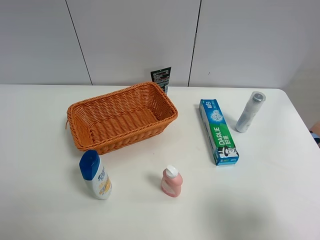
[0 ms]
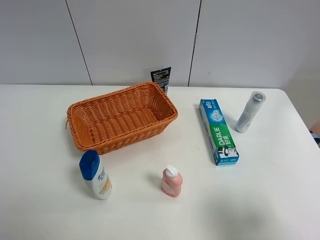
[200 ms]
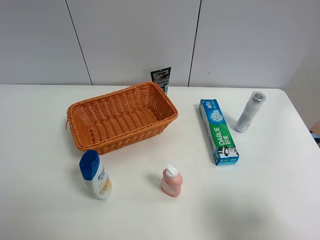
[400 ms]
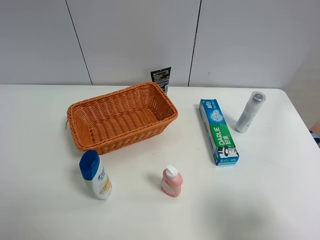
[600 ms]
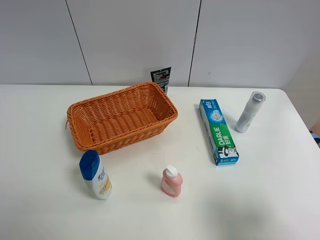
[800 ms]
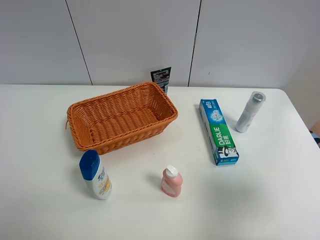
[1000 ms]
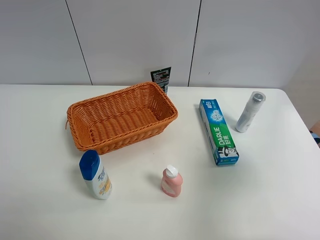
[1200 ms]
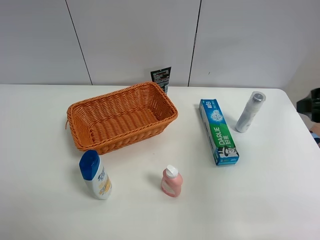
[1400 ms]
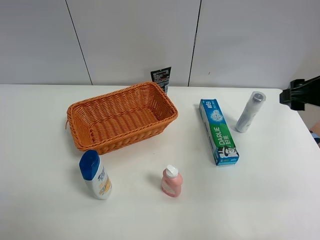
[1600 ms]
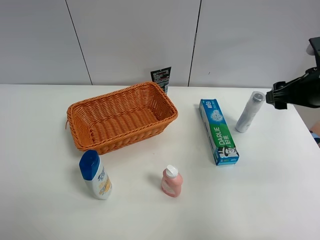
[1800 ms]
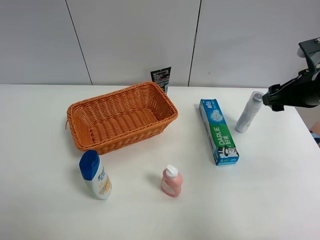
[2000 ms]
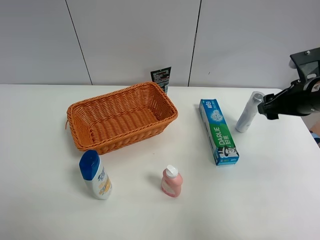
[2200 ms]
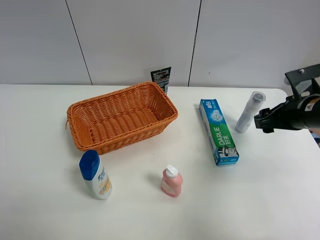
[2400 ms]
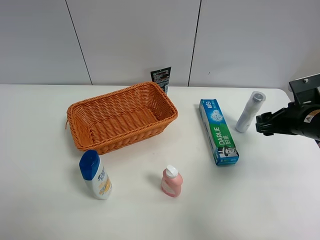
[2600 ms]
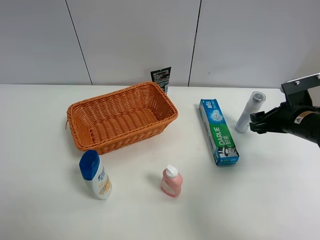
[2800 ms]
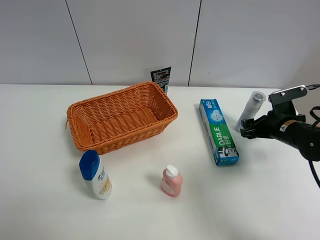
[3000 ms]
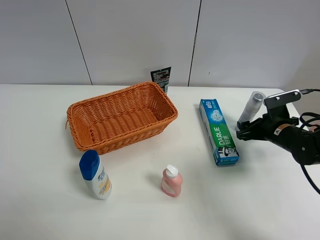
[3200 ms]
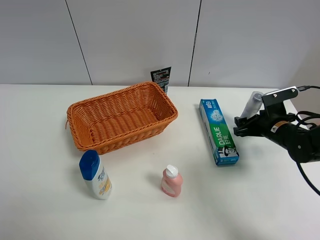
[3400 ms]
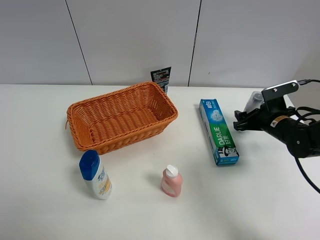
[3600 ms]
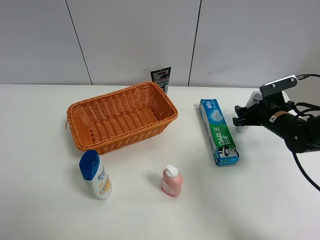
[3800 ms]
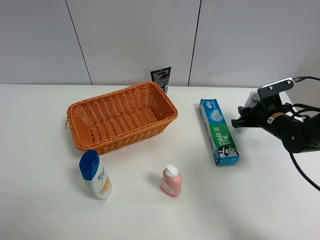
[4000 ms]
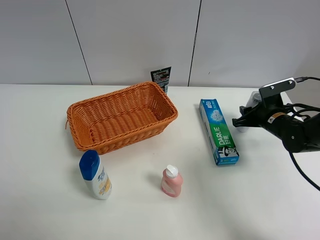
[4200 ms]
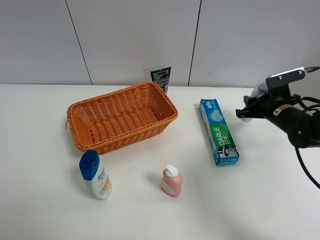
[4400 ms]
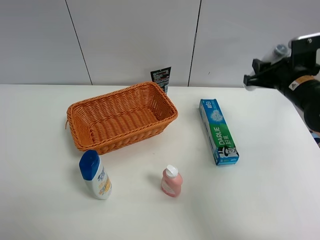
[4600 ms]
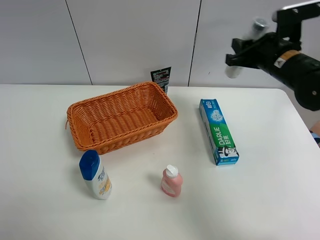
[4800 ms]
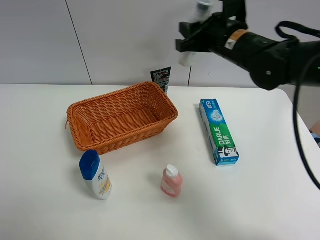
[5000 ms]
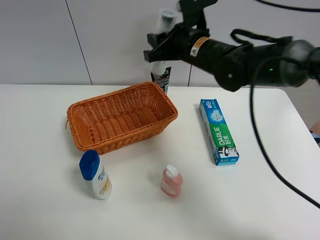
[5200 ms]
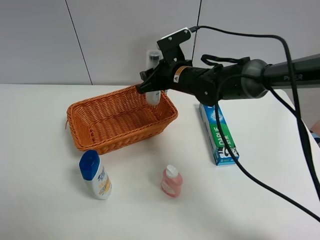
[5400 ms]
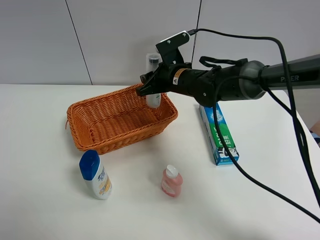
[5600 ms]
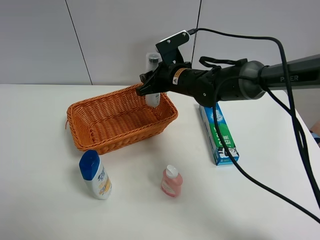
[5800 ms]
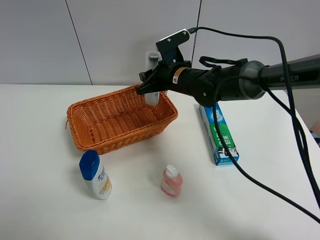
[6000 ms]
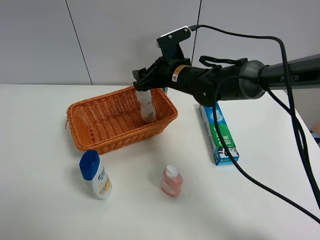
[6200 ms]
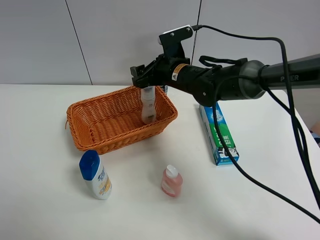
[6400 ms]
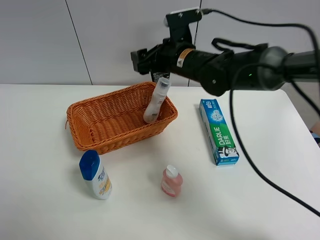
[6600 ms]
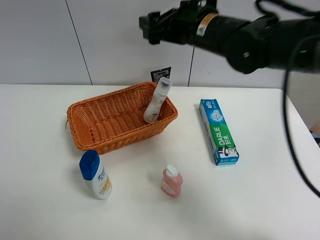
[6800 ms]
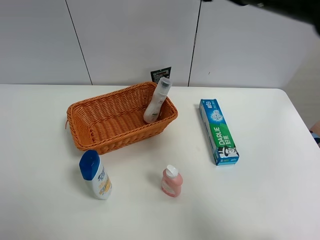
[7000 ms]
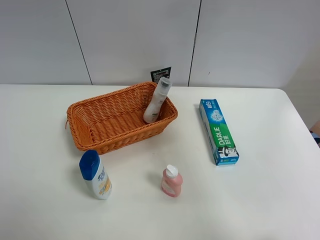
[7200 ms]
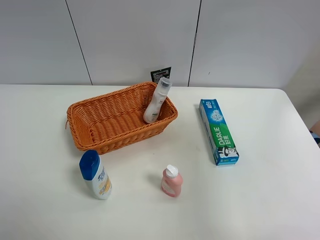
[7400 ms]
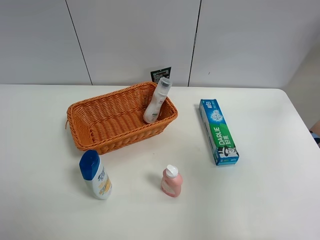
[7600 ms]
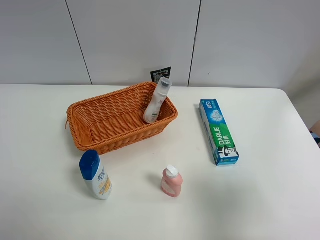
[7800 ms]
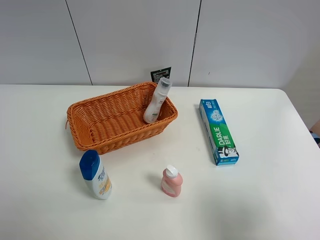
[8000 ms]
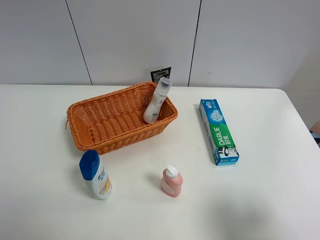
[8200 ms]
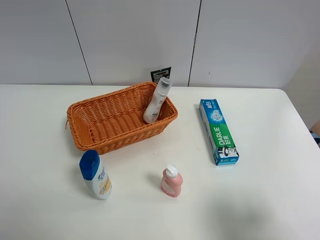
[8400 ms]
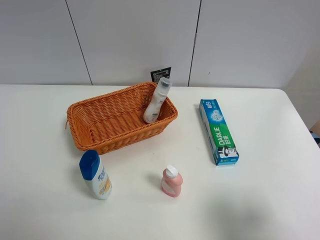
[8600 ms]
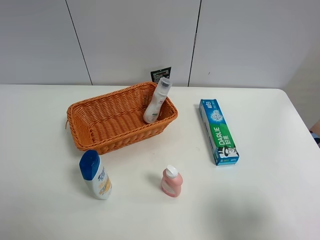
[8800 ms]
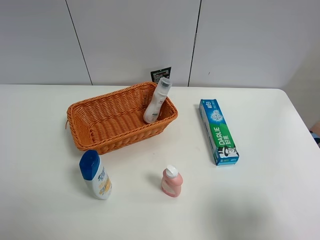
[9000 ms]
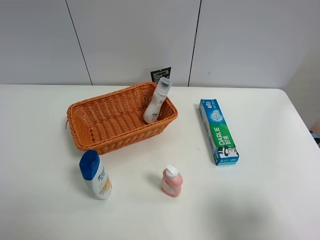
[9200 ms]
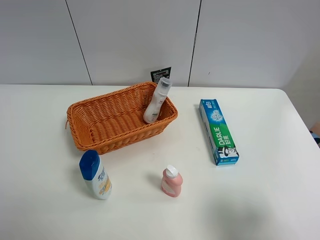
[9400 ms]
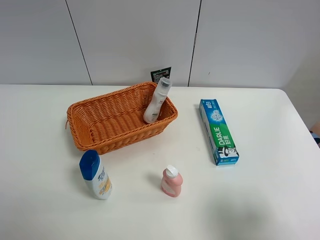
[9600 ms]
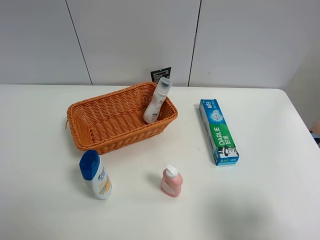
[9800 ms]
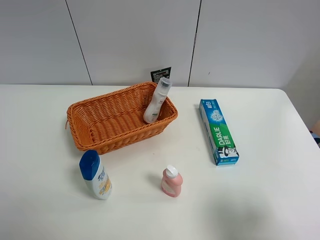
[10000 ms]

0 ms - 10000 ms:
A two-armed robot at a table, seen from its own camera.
Task of the whole recording: Place the object closest to the toothpaste in the basket.
Step, 0 ms - 4000 ms: Grasp the cleaning agent with right gripper.
Step, 4200 ms - 6400 ms: Place the cleaning agent in the basket with right gripper.
0 ms - 1400 ms: The right gripper is displaced forward by roughly 20 cm.
1400 ms - 2800 ms: The right gripper goes approximately 15 cm downward and forward.
2800 ms - 4200 ms: The right gripper moves forward, roughly 5 cm, and closes its fingers.
4200 ms - 5800 ms: The right gripper is displaced to the left by about 25 cm.
5800 ms - 7200 ms: The right gripper goes about 35 cm upward, to the right and backward, and opens up.
7200 ms - 8600 ms: The right gripper travels backward and downward by roughly 25 cm.
8600 ms - 10000 ms: The two grippers keep their place.

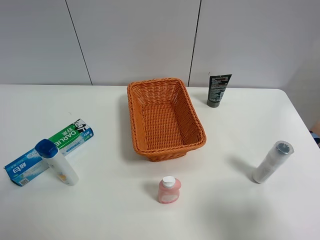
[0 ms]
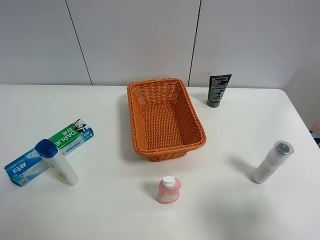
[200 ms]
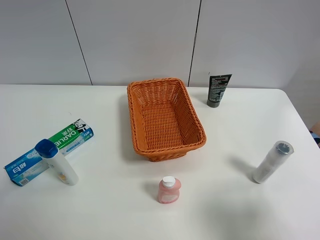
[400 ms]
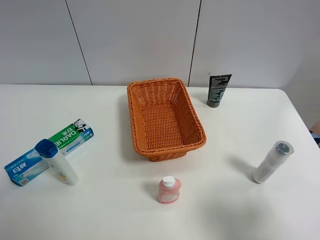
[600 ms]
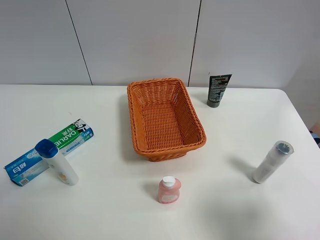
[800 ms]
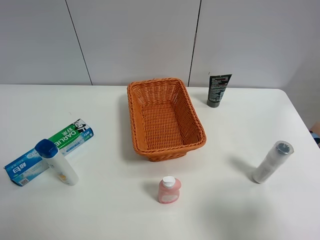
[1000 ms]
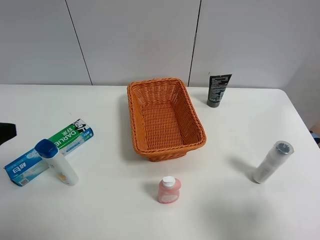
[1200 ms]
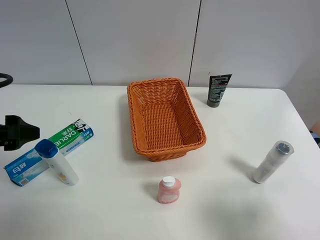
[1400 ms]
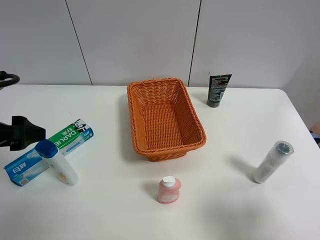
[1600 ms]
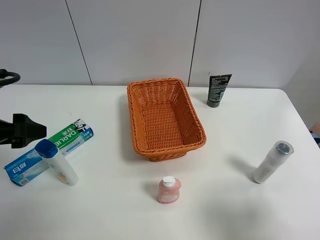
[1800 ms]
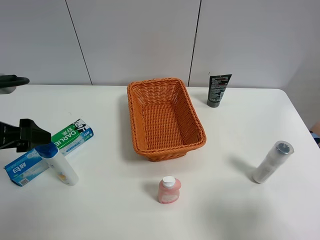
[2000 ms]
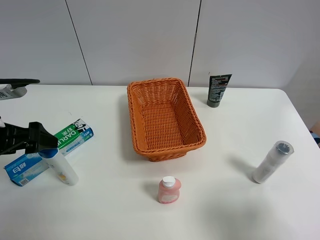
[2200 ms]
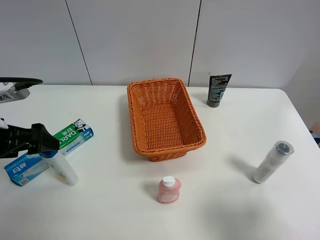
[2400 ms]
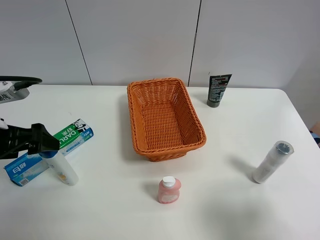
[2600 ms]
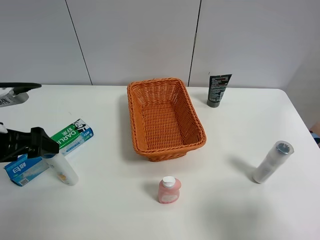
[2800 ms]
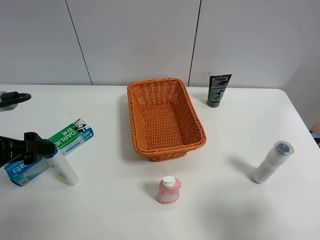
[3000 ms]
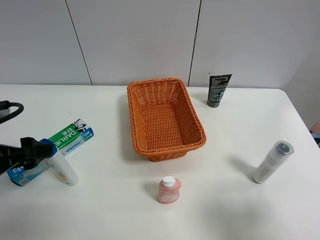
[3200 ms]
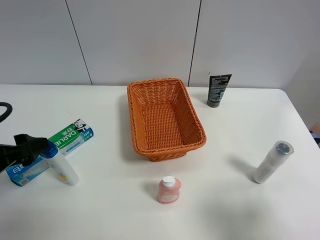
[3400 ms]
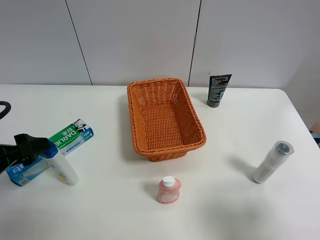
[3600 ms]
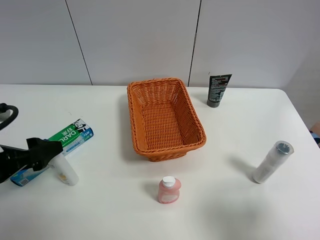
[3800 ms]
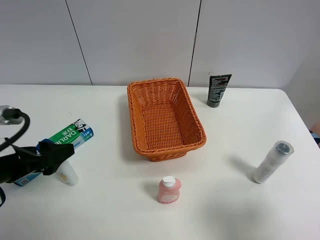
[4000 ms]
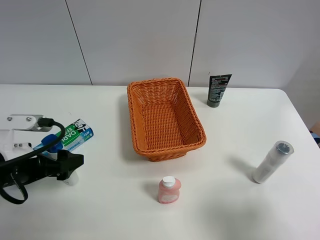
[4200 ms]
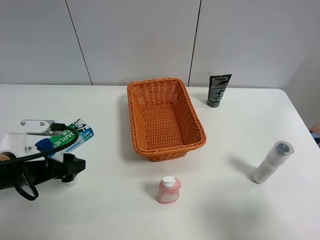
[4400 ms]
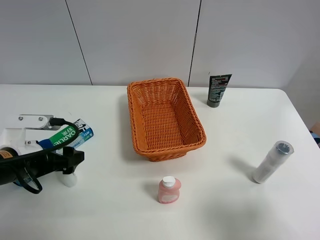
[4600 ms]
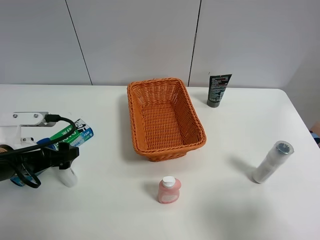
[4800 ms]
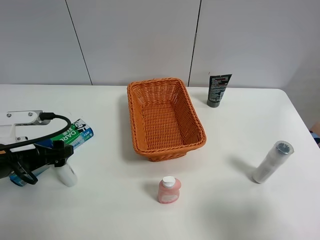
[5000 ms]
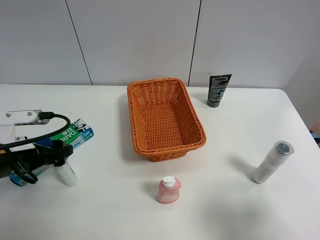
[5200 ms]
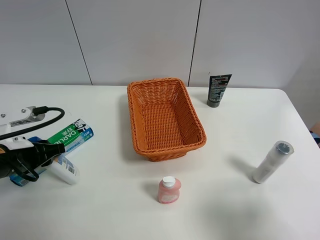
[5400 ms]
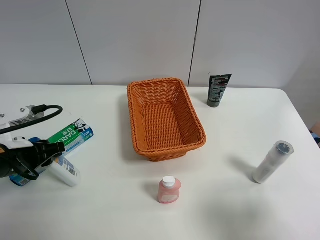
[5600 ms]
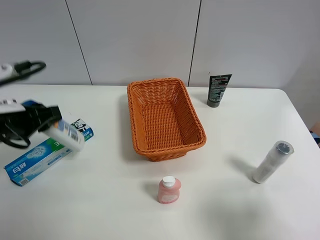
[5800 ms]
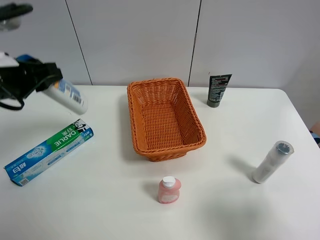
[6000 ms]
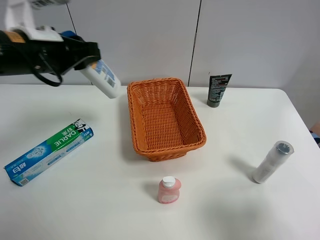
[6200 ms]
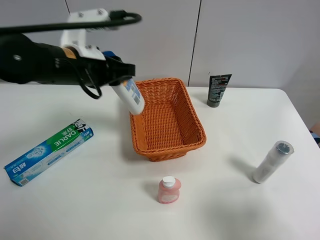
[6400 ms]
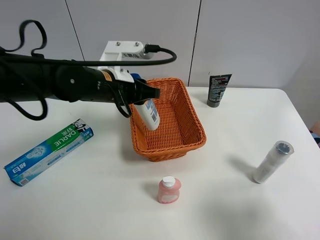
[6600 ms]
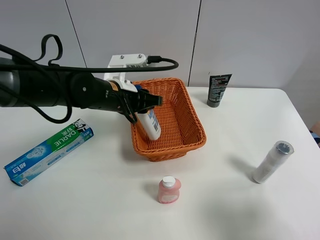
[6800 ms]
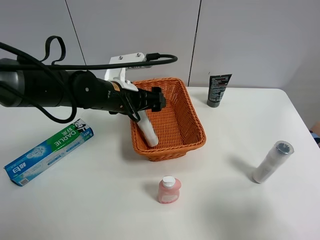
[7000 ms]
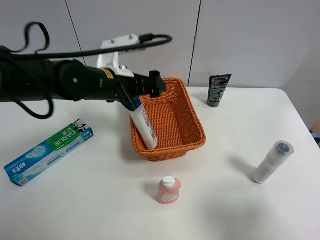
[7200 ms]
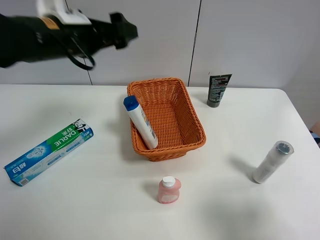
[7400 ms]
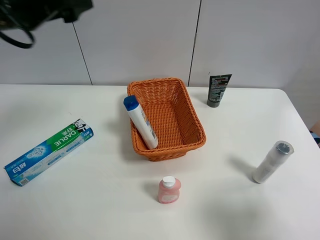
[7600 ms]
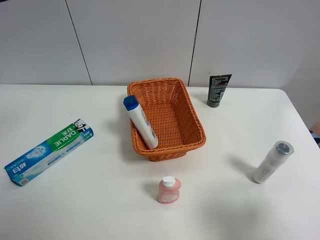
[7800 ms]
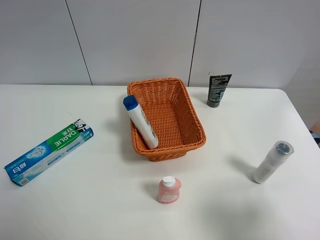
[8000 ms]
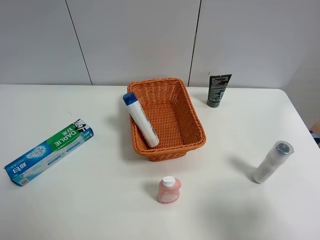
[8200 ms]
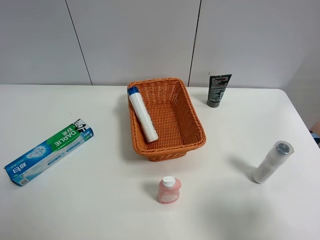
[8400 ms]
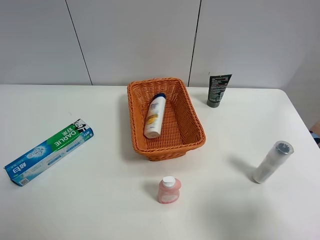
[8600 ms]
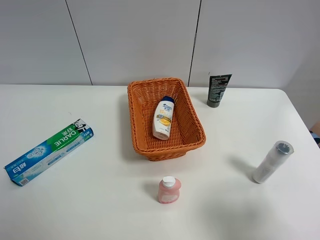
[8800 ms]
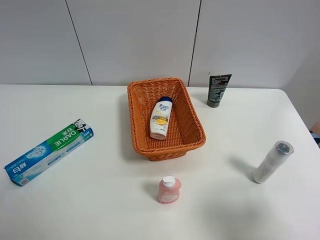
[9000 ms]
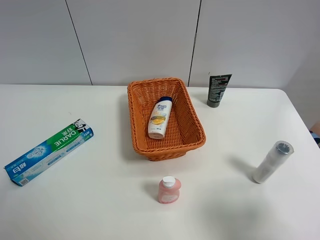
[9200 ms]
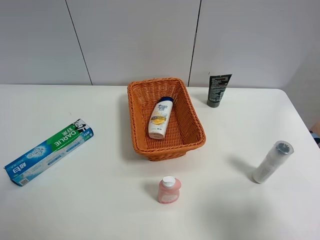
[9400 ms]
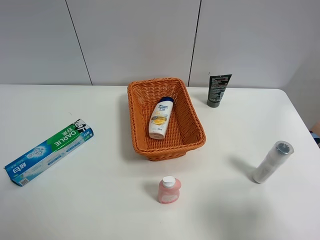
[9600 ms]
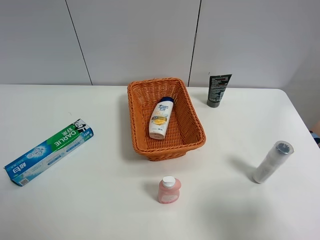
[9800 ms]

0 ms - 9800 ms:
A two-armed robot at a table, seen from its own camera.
Task of the whole recording: Place the object closest to the toothpaste in the basket.
Step, 0 ms - 5400 ms: Grasp the shampoo with left gripper.
Step, 5600 ms - 7200 ms: Place the shampoo in the basket with left gripper.
0 ms - 1400 ms: The left gripper is displaced forward by some 15 cm.
1400 ms - 2800 ms: There are only small adjustments of the grippers.
2800 ms - 4200 ms: The left gripper shifts some 5 cm downward.
4200 ms - 5600 ms: The left gripper closes its fingers.
5600 ms - 7000 ms: The left gripper shifts roughly 25 cm to the right and forward, and opens its fingers.
7000 ms - 8400 ms: The left gripper shifts approximately 40 cm backward, to the left and upward.
8400 ms - 9800 ms: The left gripper is displaced downward by about 10 cm.

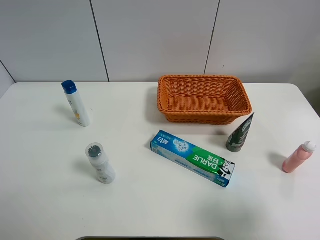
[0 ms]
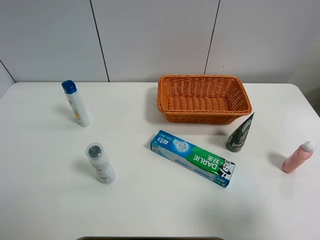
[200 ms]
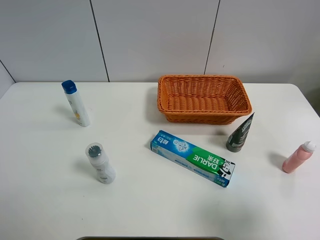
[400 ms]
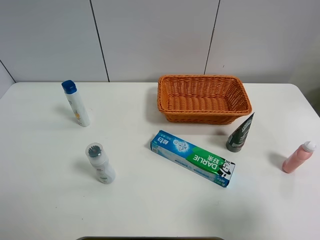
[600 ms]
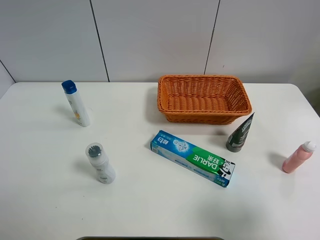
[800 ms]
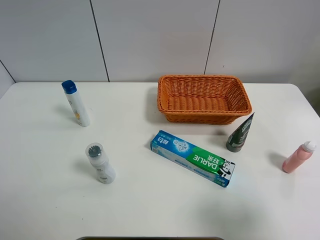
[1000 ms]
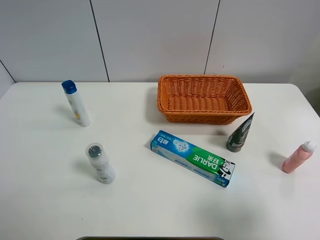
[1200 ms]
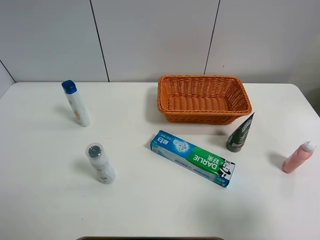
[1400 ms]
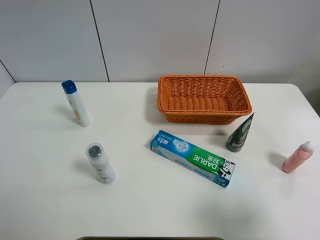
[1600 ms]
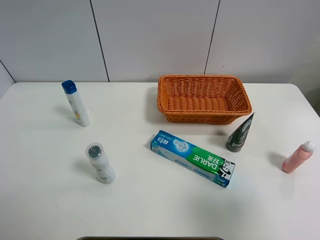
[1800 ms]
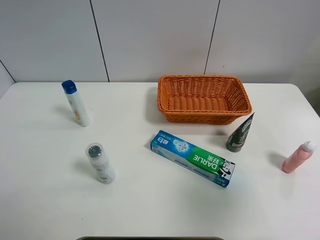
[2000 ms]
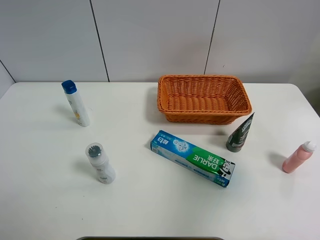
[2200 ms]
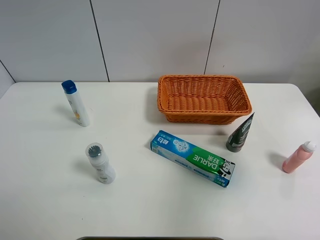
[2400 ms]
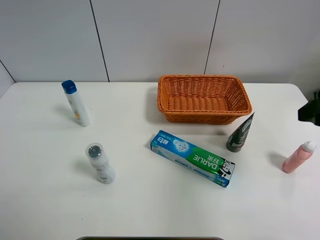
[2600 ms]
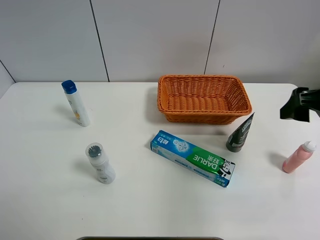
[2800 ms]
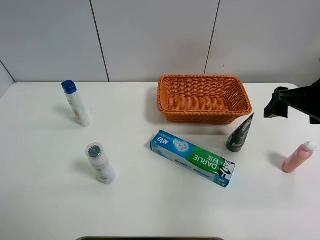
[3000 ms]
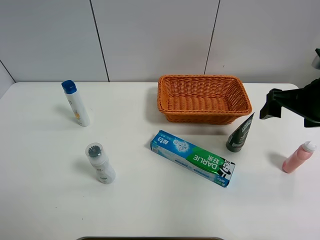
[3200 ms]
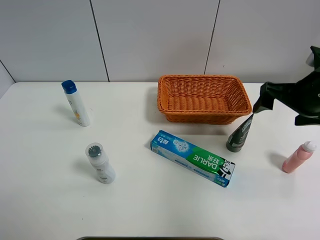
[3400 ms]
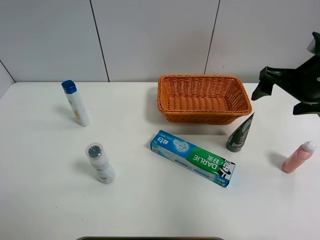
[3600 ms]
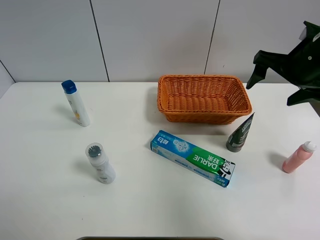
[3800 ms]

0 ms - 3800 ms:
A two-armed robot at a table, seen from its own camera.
Task of the whole recording: Place the object closest to the toothpaste in the basket.
0 ms - 1200 ms: Neither gripper changes place.
1200 ms - 2600 ms: The right gripper shifts about 15 cm forward.
2600 ms - 3800 ms: The right gripper moves forward, roughly 15 cm.
